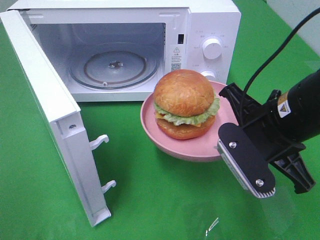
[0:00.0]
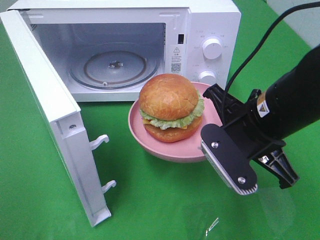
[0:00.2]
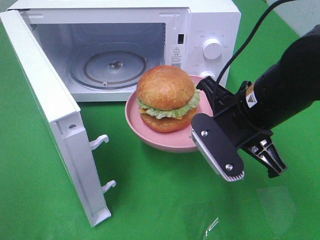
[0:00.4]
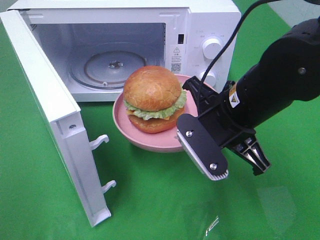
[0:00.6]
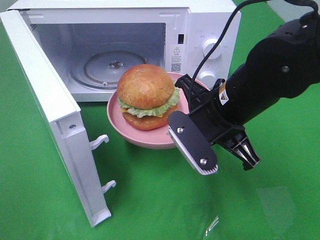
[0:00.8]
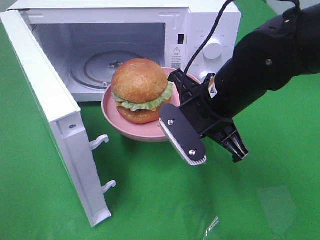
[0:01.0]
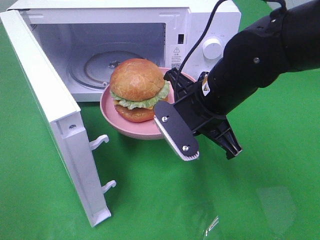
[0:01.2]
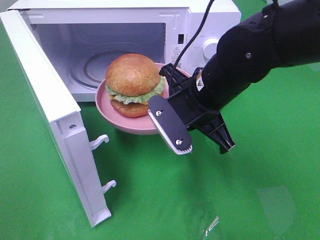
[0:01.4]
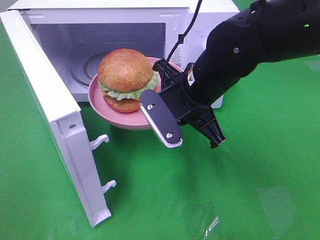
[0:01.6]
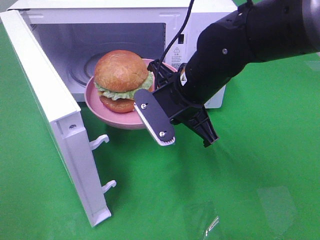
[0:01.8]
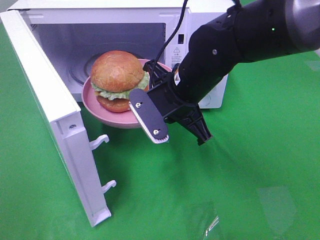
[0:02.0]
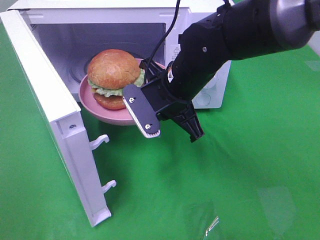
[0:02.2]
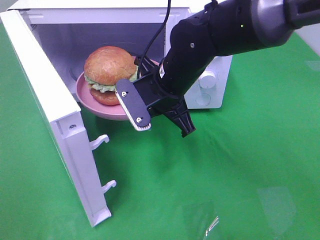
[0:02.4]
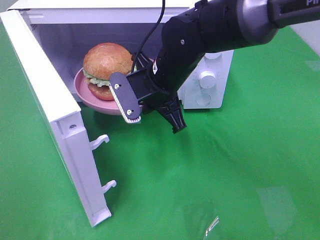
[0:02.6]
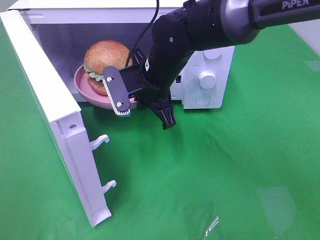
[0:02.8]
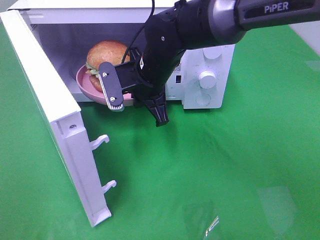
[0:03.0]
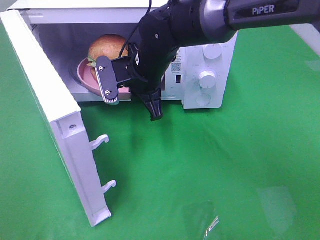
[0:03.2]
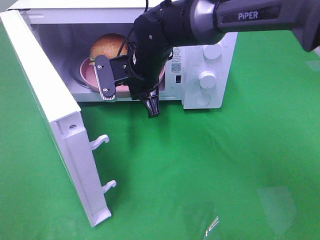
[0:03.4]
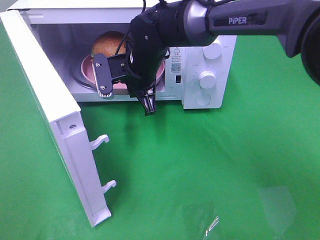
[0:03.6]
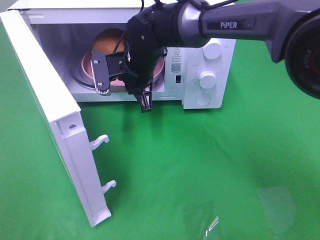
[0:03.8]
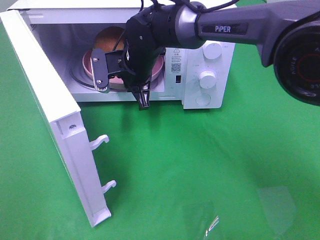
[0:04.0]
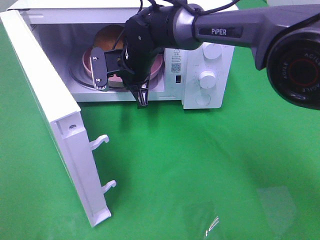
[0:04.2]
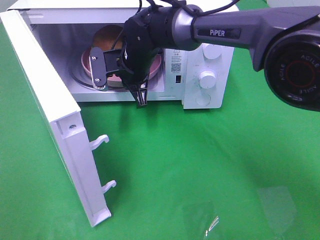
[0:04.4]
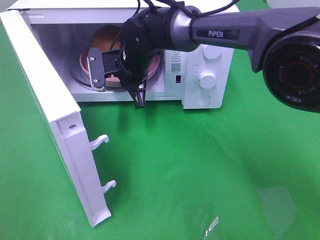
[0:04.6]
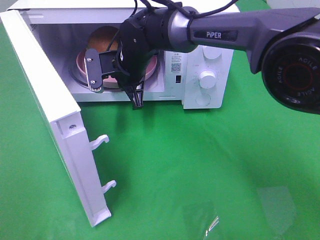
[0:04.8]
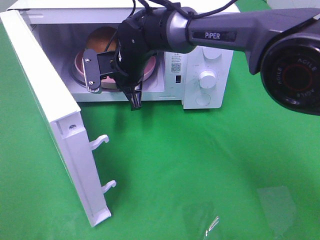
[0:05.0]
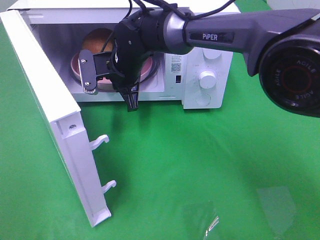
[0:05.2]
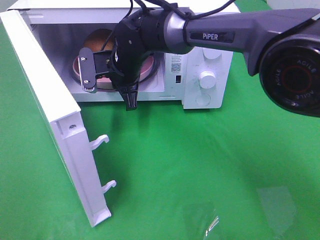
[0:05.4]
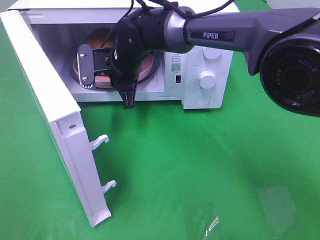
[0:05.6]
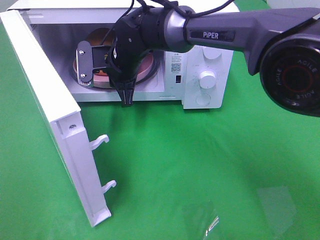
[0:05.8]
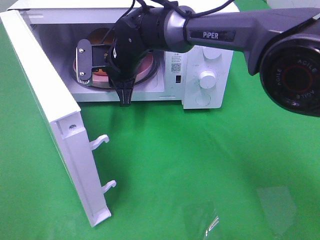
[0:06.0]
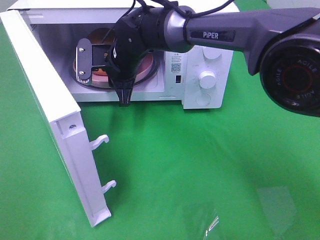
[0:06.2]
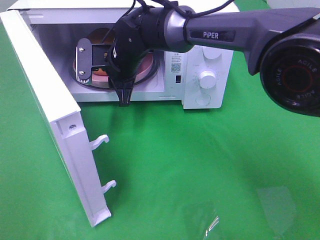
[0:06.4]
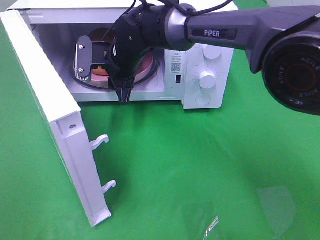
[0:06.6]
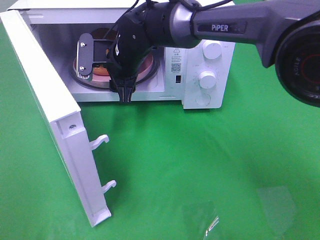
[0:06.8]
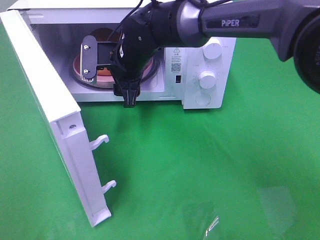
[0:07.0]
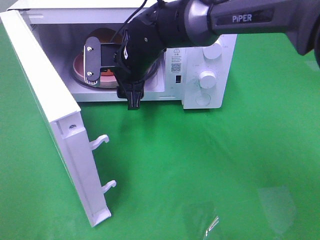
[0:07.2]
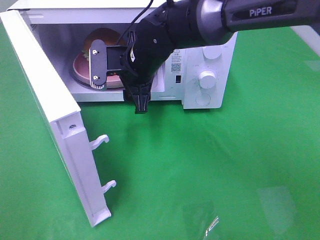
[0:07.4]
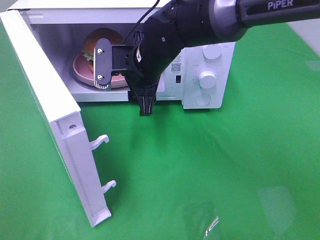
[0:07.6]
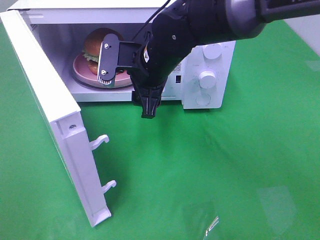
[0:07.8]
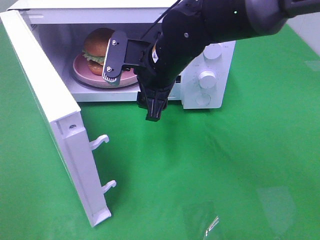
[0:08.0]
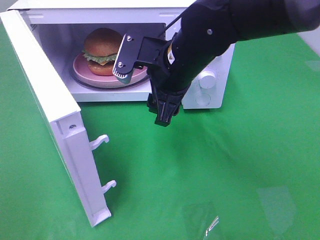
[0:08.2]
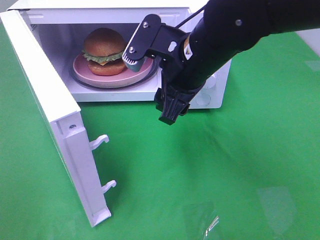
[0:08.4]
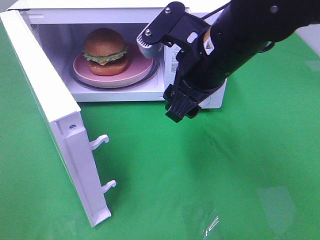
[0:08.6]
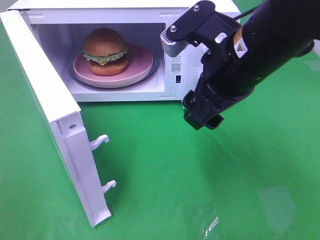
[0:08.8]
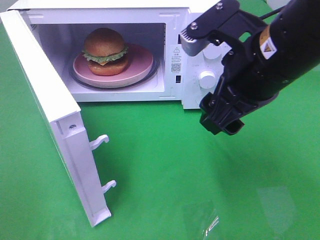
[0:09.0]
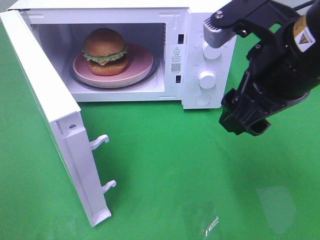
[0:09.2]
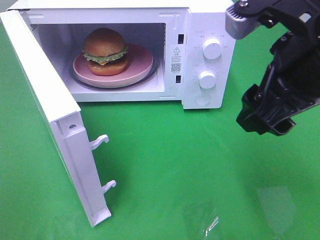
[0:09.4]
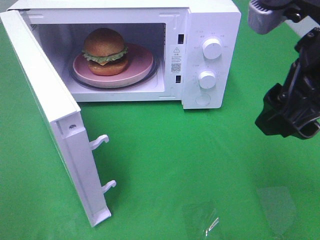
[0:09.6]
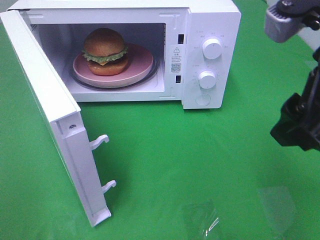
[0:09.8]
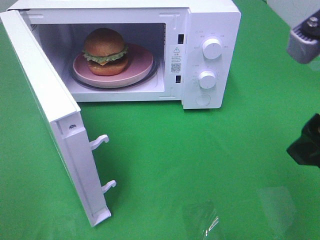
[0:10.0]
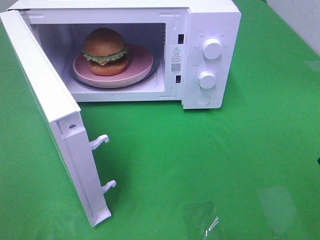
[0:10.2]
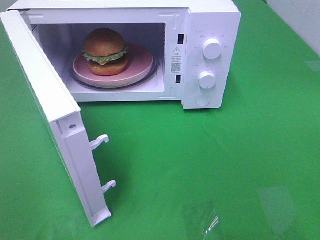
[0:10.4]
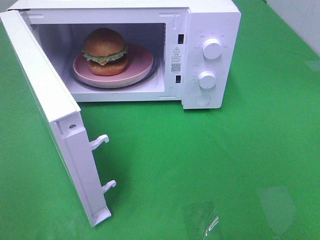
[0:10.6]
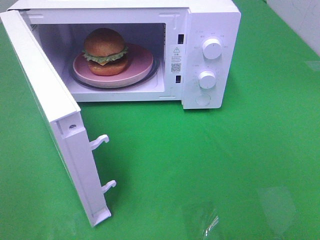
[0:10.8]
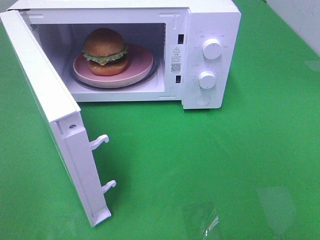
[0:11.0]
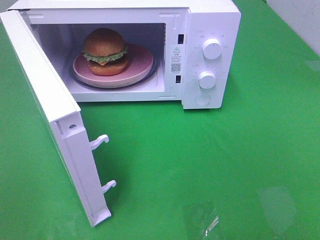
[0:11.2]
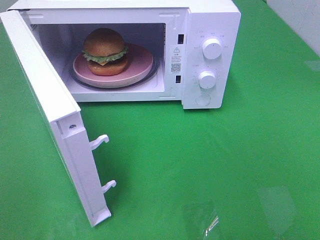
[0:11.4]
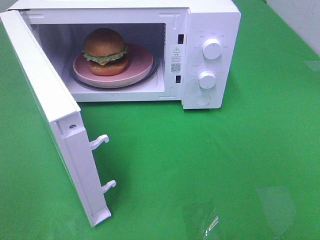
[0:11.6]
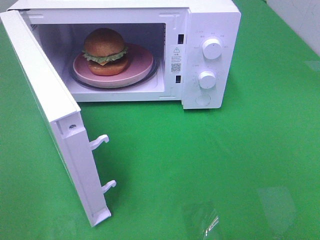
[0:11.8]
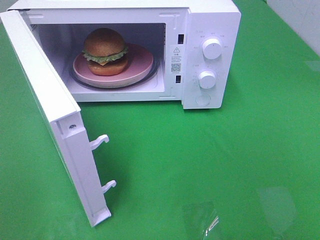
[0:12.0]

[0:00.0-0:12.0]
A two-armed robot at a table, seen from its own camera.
Task of the whole recording: Heat the burger.
Step, 0:00.0 to 0:06.0: Right hand: place the plate in the microwave.
0:00.0 to 0:01.6: The right gripper is displaced to the left and forward by approximately 10 cm.
0:01.6 to 0:03.0: The right gripper moves forward and to the left, roughly 10 cm.
0:03.0 to 0:04.4: The right gripper is displaced forward by some 5 cm.
0:04.4 to 0:06.0: The grippers make only small movements.
0:06.0 to 0:07.6: The right gripper moves backward, roughly 5 cm, and opens.
0:07.6 to 0:09.0: The right gripper moves backward, to the right and upward, some 20 cm.
0:09.0 to 0:10.4: The right gripper travels to the right and backward by approximately 15 cm.

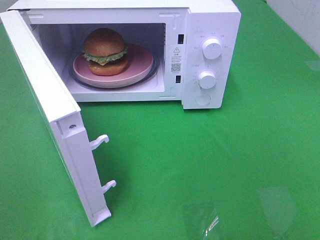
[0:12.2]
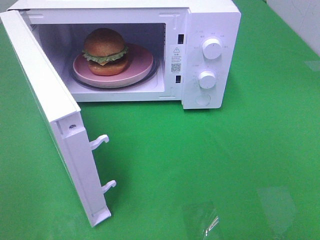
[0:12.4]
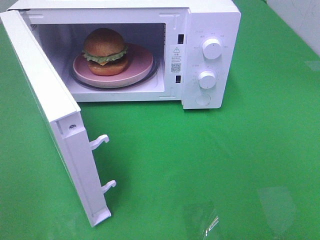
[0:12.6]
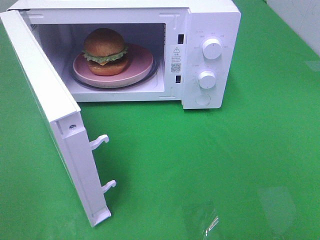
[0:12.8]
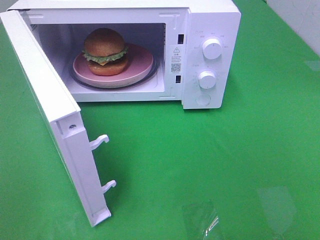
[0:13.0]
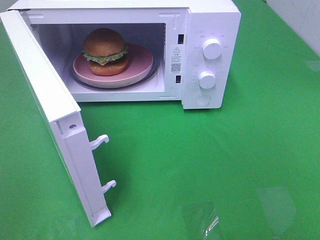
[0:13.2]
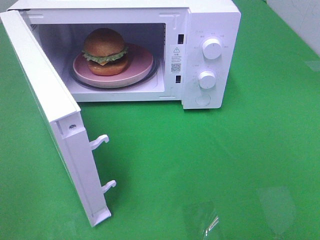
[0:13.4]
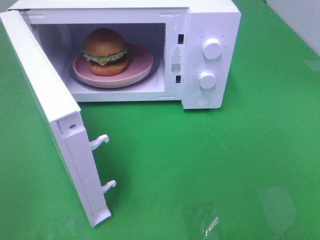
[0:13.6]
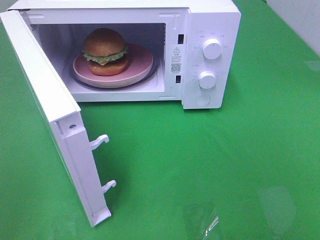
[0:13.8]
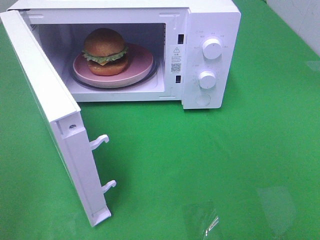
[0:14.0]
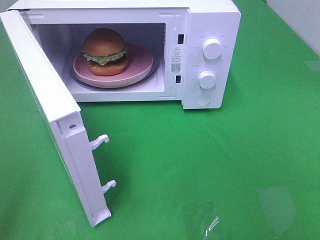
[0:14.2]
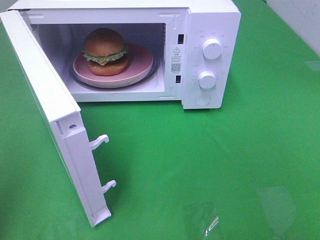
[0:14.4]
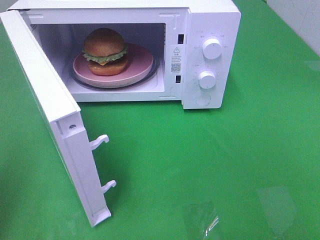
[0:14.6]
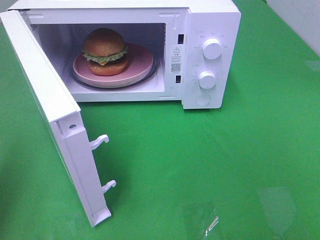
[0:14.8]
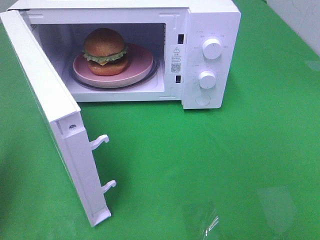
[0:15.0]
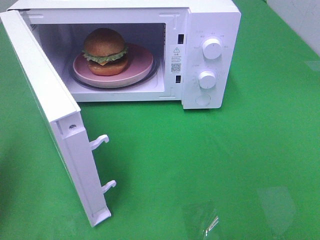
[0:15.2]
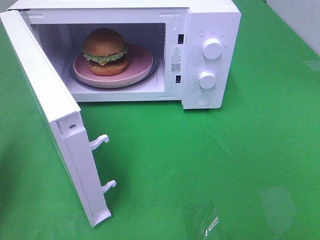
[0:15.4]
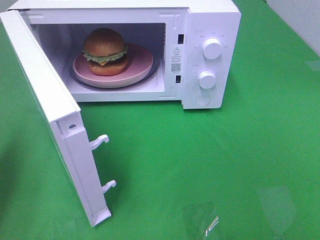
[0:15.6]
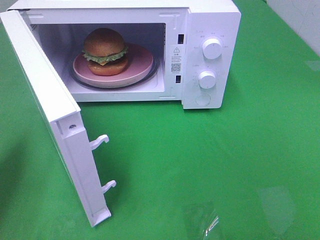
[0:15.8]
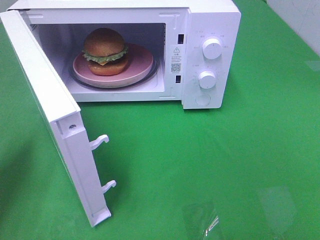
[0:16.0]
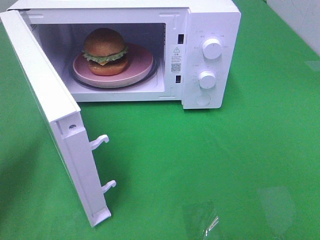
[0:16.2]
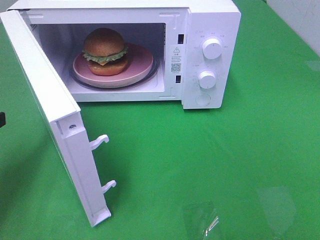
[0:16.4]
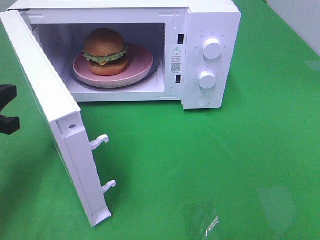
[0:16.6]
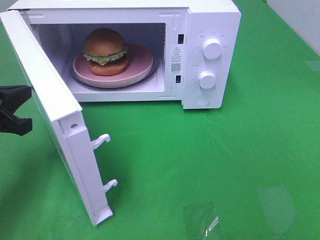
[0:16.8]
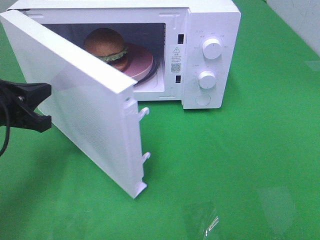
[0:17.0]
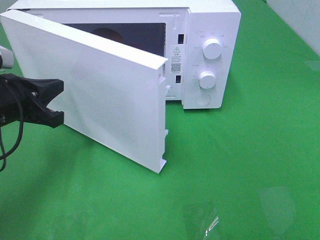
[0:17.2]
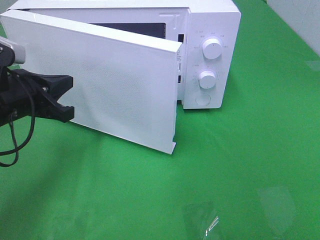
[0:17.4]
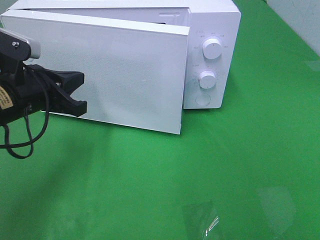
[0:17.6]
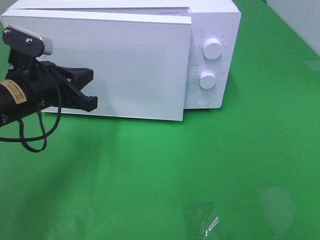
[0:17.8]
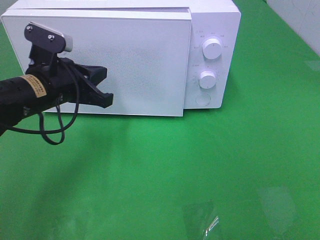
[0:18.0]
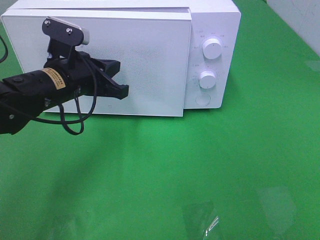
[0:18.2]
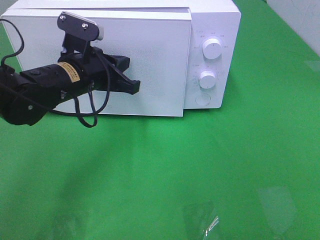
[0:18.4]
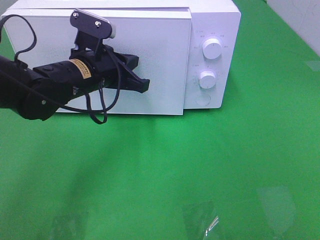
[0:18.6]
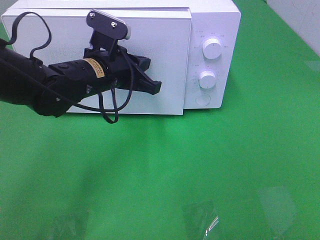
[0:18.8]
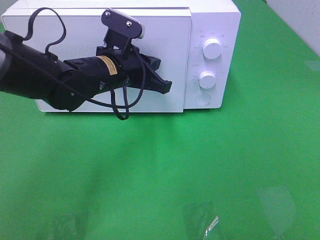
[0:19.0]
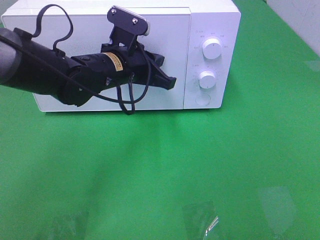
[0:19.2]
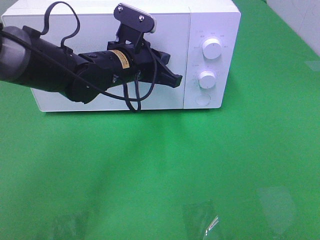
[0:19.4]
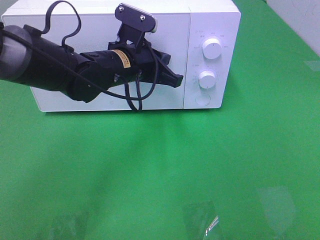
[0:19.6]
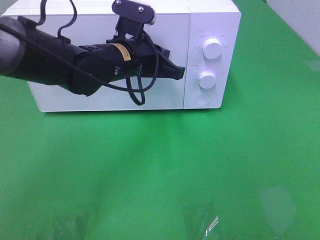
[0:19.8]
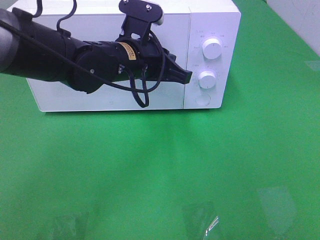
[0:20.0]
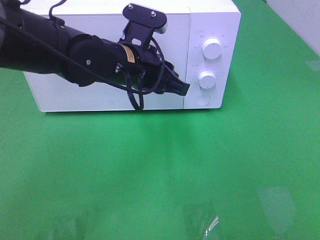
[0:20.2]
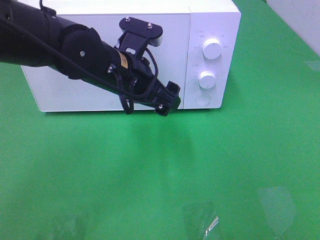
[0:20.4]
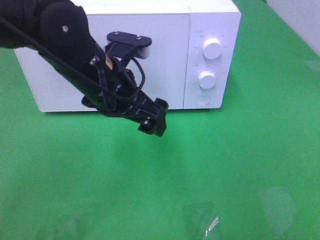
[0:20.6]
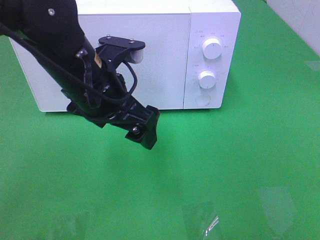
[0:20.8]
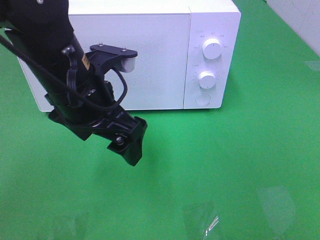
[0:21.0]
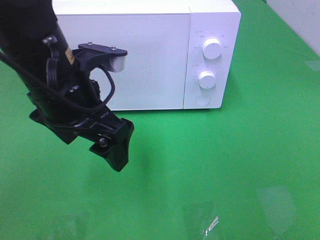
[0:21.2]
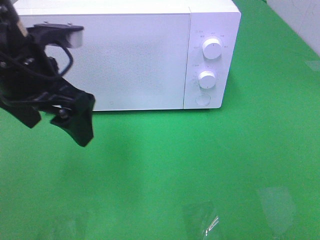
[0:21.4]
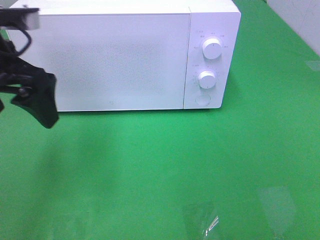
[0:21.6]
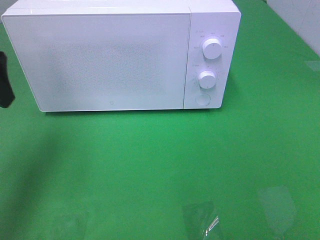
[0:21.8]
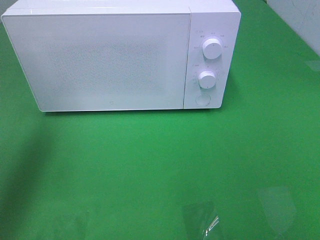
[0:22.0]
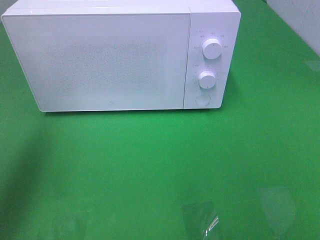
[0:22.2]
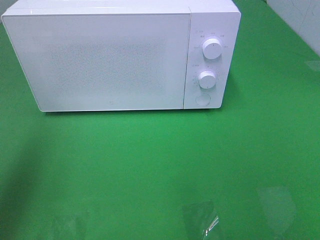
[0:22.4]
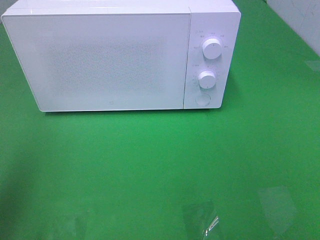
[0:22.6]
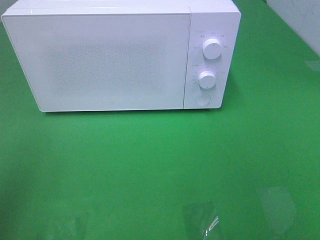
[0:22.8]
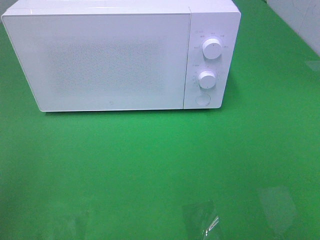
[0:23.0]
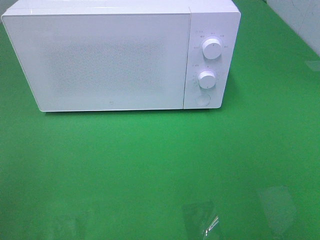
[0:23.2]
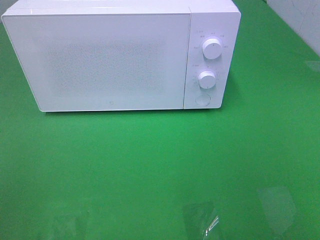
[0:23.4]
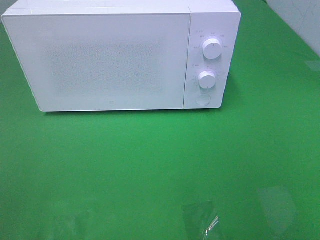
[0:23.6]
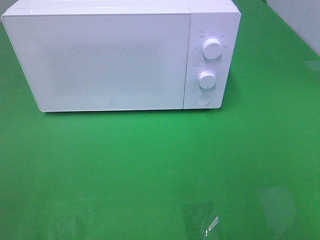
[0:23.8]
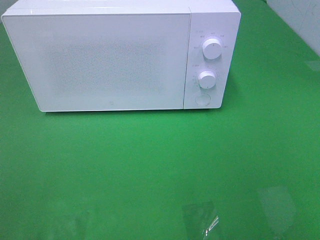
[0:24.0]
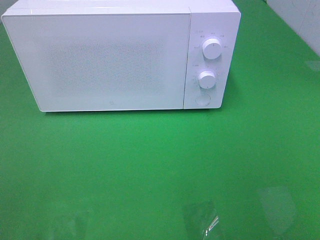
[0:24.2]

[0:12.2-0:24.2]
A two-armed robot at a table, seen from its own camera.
Task of the whole recording: Heat the burger.
Step, 0:12.2 to 0:19.8: Left hand: close the microwave door.
0:13.8 to 0:15.2: The left gripper travels forward by some 15 cm, and closes.
0:15.2 to 0:16.6: The left gripper is displaced downward and forward by roughly 10 cm.
0:16.6 to 0:18.2: The left gripper shifts about 15 cm to the right and forward.
0:18.2 to 0:19.8: The left gripper heads to the right, covering roughly 10 cm.
0:19.8 to 0:21.2: The left gripper travels backward, to the left and upward by approximately 15 cm, and opens up.
0:21.2 to 0:22.6: The left gripper moves to the left and backward, approximately 20 cm.
0:22.6 to 0:24.2: The left gripper goes roughly 15 cm backward.
